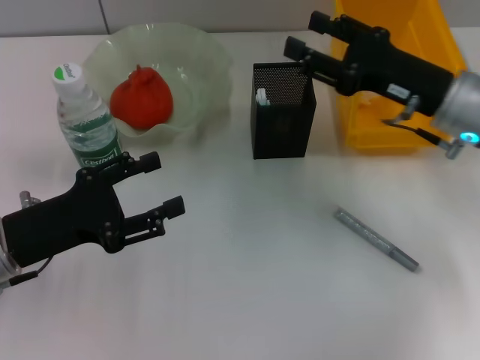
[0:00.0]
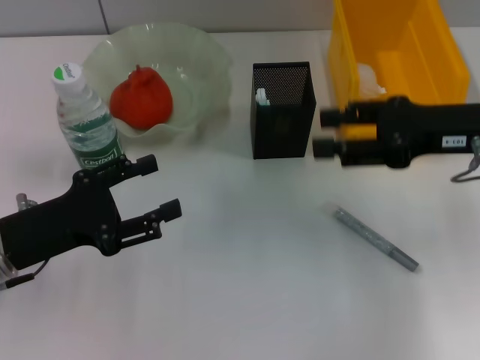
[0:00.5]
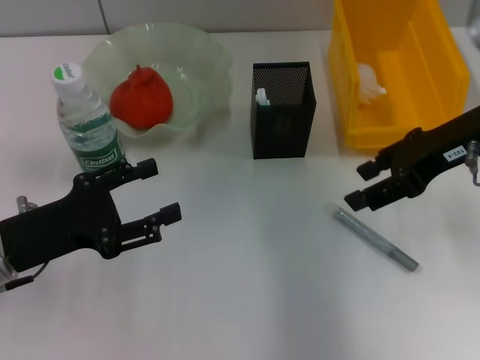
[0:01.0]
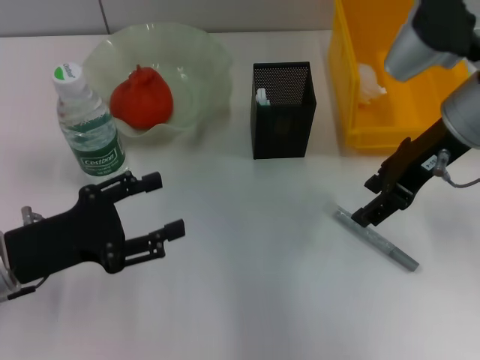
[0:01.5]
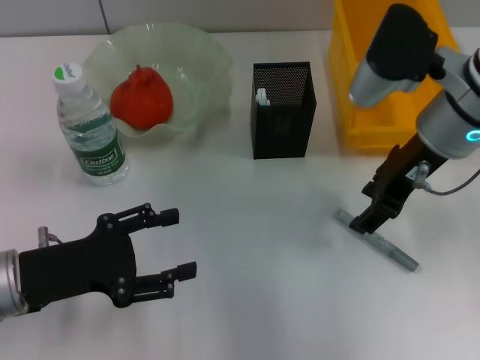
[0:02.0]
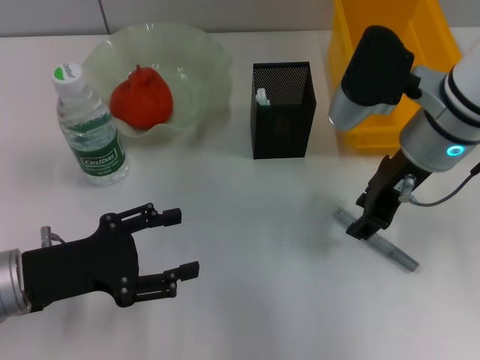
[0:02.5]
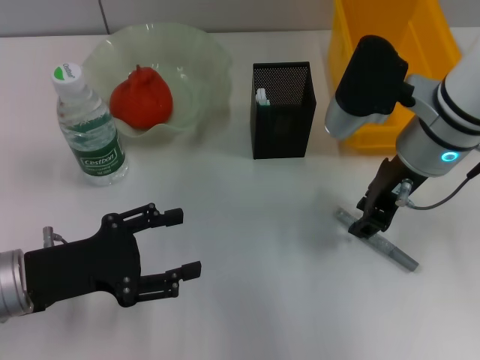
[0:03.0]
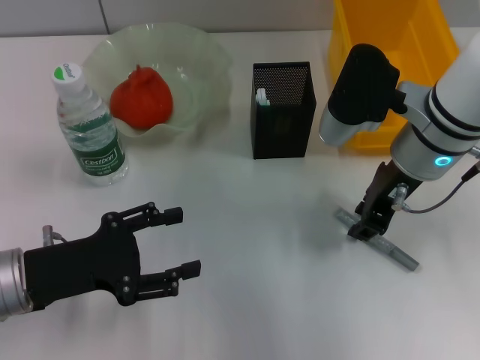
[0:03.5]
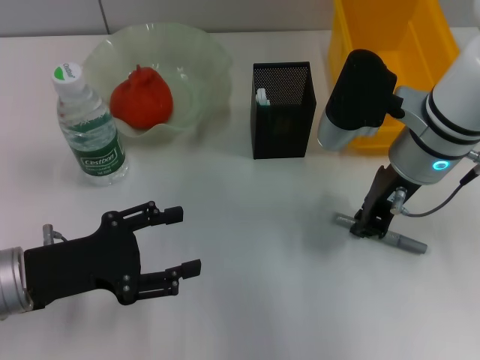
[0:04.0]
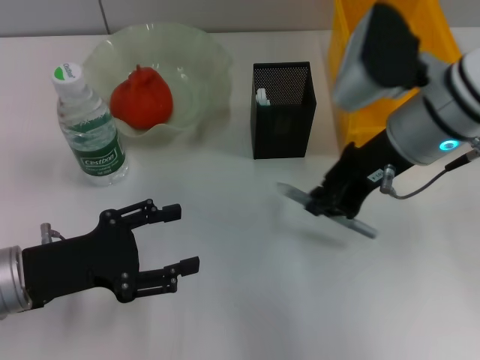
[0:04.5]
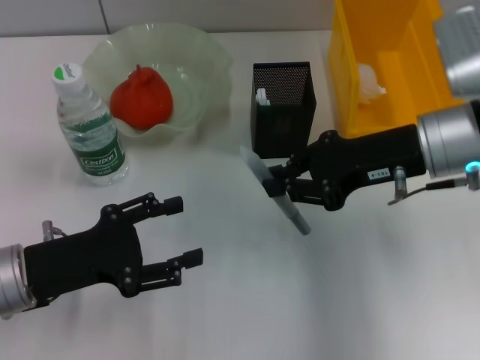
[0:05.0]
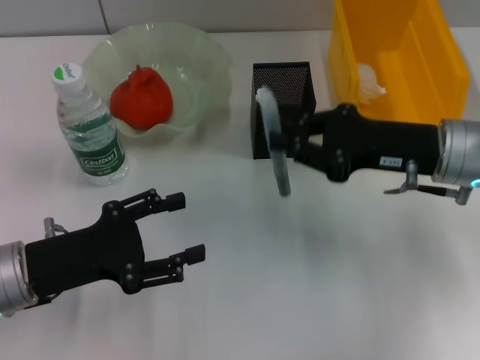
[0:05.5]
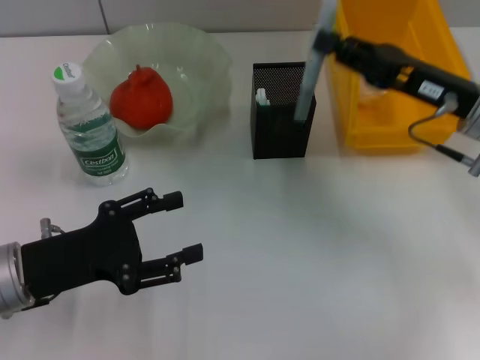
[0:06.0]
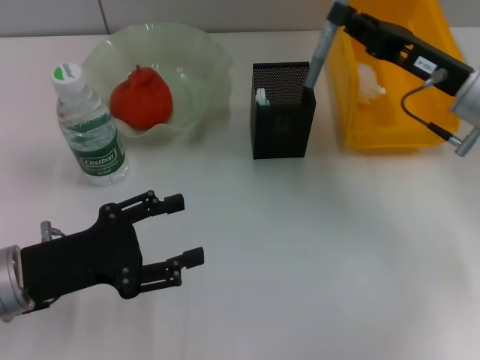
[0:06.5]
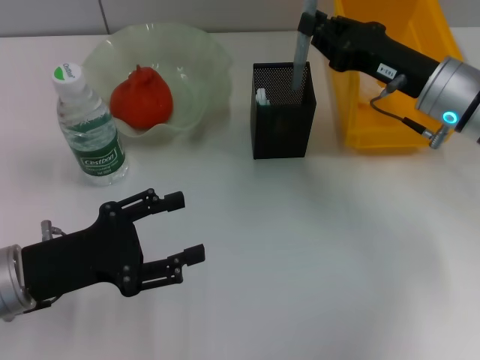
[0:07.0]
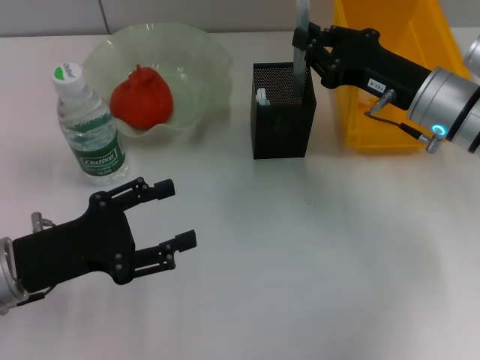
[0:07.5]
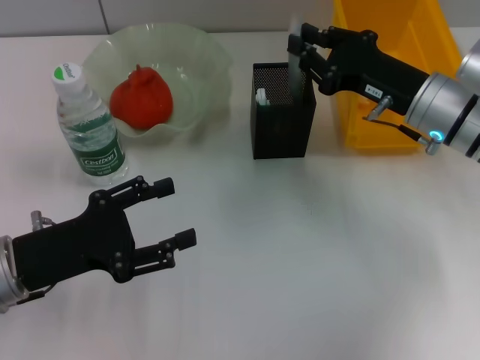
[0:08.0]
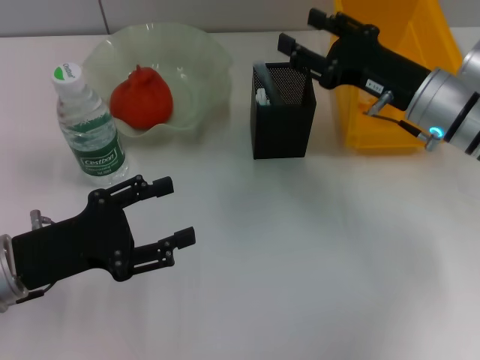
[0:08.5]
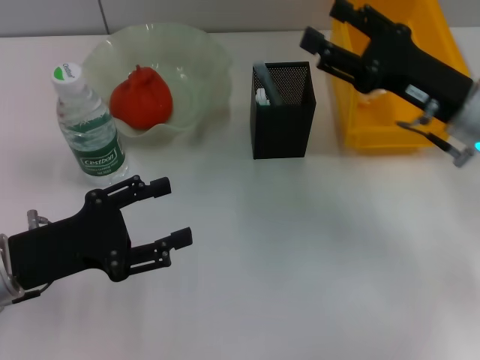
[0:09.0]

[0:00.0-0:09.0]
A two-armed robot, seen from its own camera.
Step, 0.0 to 3.0 s: Grab the gray glue with the right hand.
Step, 4.0 to 8.0 s: Place the gray glue into the pen holder with the right hand.
0.0 to 2.0 s: The right gripper goes roughly 5 cm upward and to the left.
2.0 to 4.5 s: The right gripper closes.
4.5 to 7.0 s: The right gripper moves downward and to the right, roughly 10 cm.
7.0 to 9.0 s: The right gripper opens its fingers.

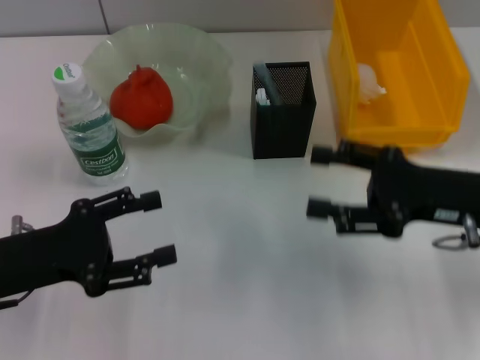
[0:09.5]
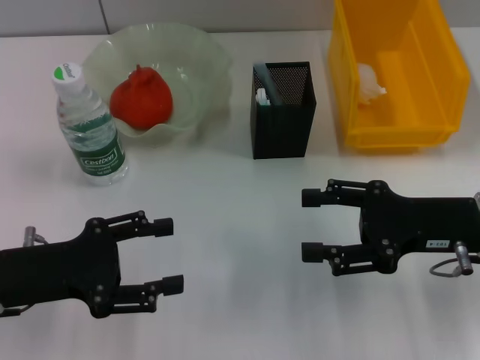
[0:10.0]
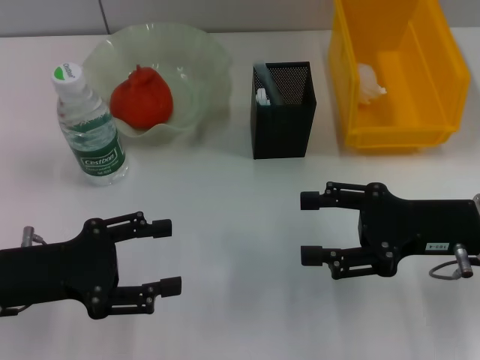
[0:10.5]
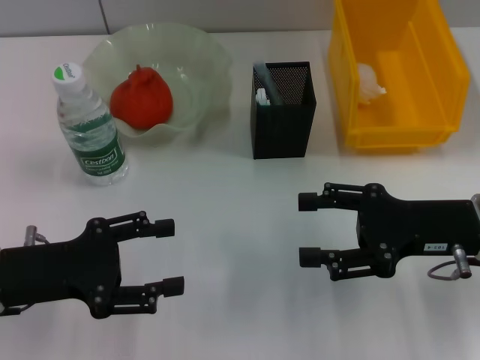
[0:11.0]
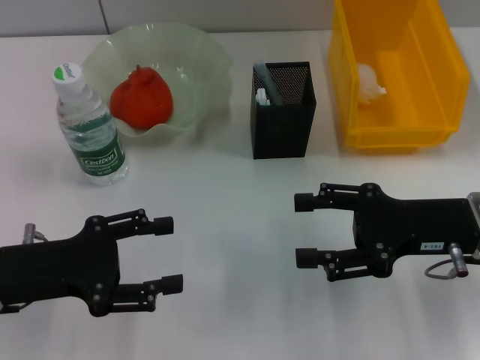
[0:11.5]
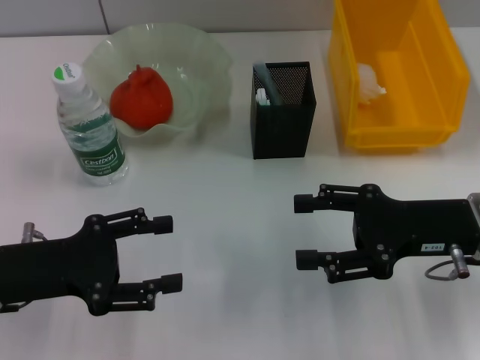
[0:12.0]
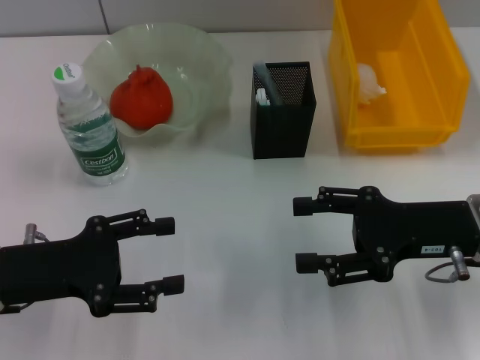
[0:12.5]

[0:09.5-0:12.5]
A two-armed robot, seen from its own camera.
9.5 to 11.0 s: The grippers move only a little.
11.0 to 12.5 s: Both grippers stay about where they are.

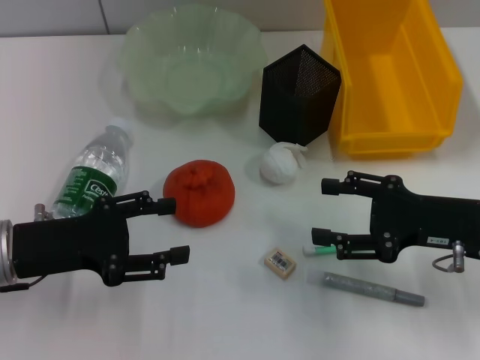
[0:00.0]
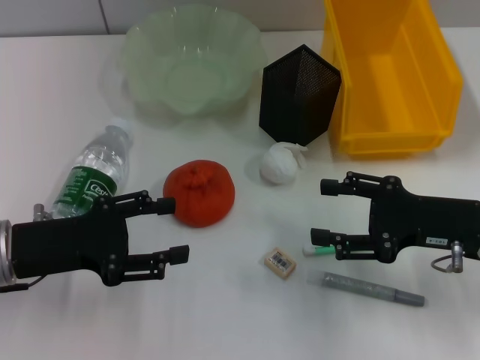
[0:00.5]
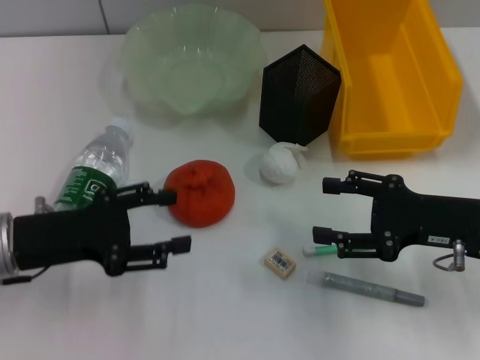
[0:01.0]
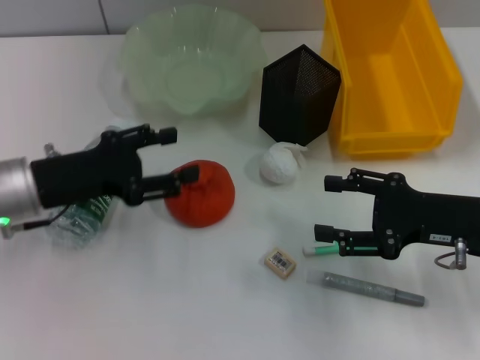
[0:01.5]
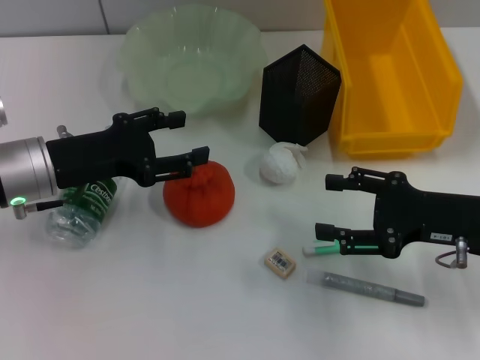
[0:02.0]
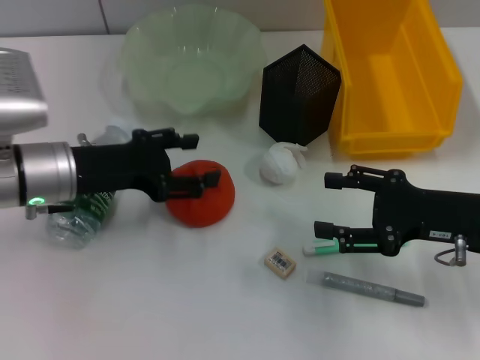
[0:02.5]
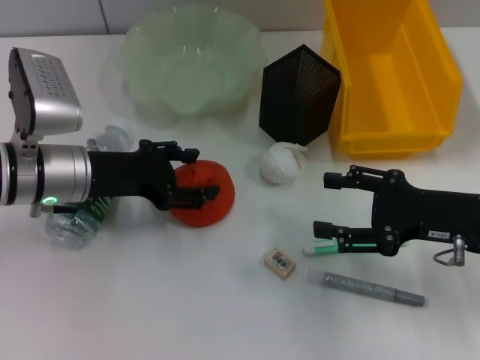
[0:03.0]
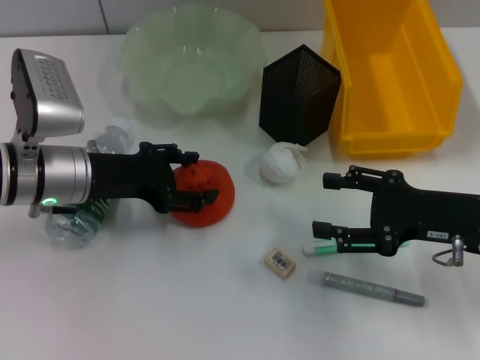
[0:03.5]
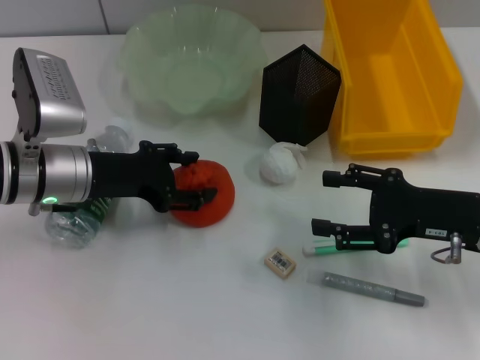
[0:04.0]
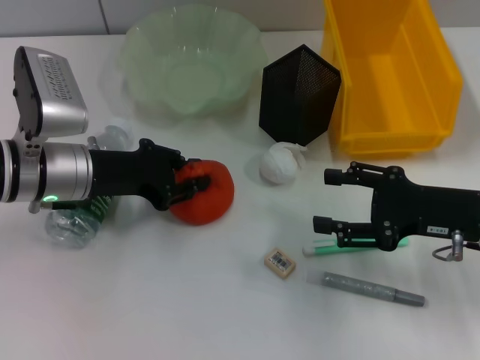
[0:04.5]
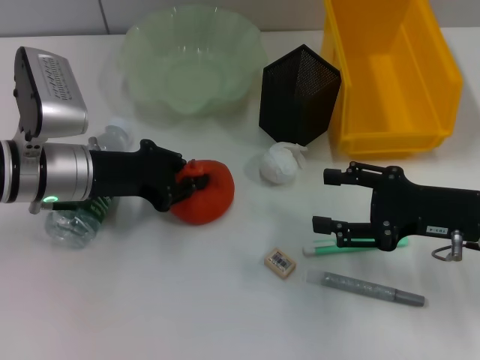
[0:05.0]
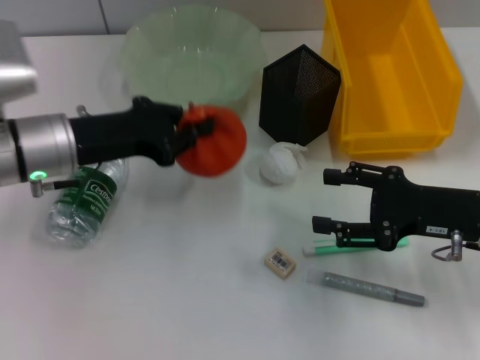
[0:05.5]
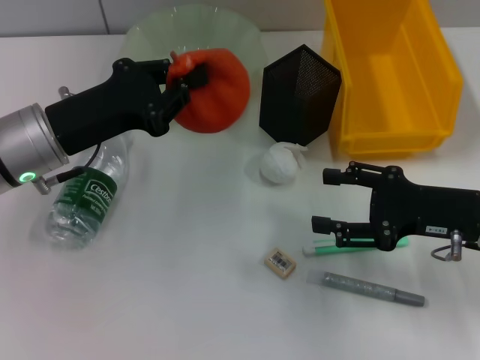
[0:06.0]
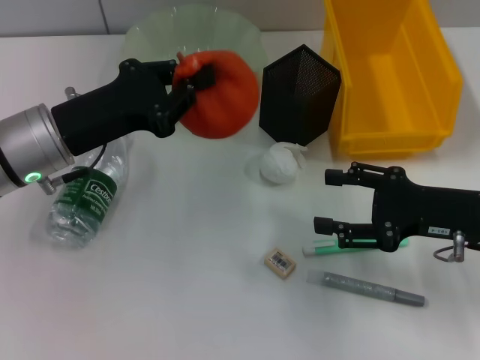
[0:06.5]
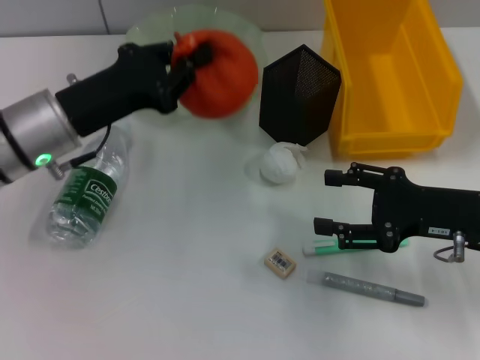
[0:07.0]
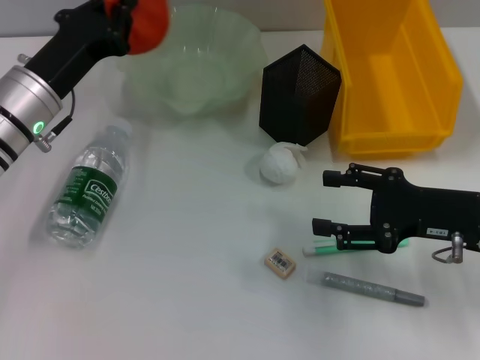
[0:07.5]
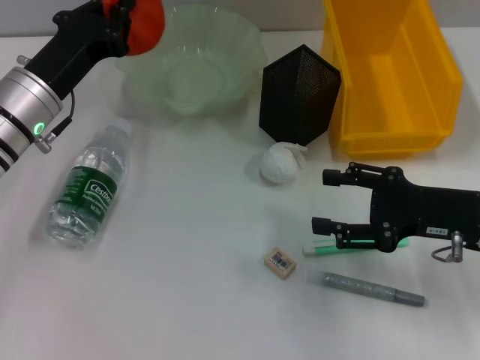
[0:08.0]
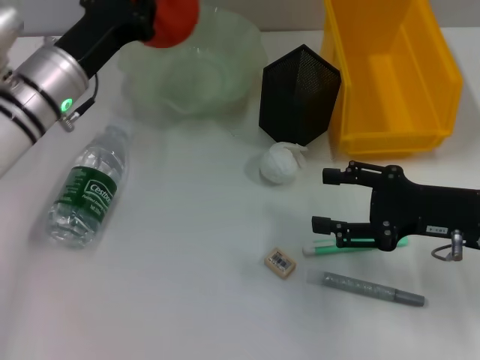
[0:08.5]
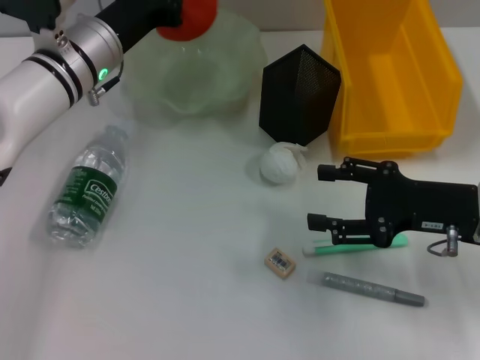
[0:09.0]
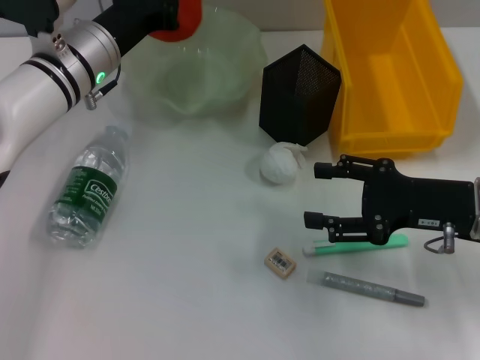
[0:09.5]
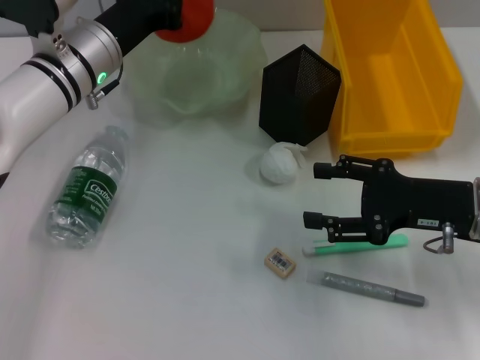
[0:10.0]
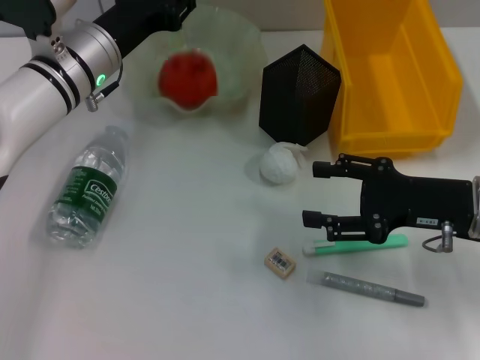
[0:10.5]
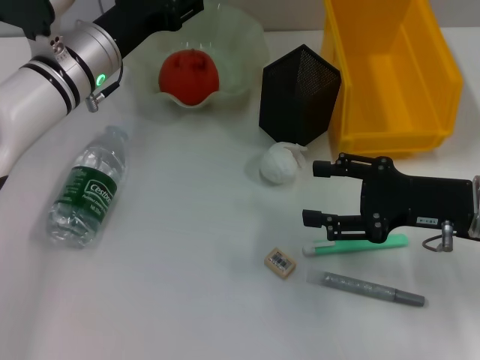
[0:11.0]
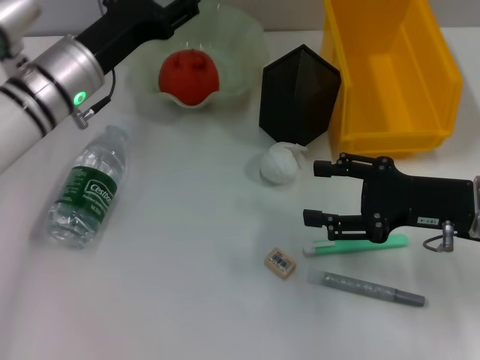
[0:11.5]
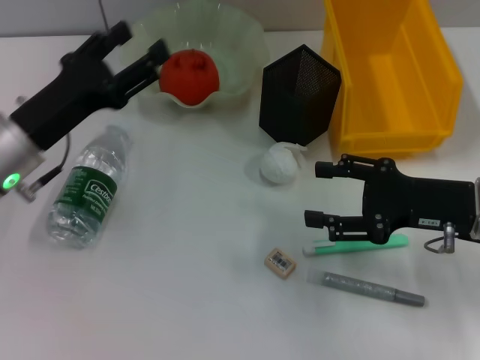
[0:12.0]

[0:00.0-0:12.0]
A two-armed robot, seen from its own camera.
Step, 0.0 to 4.5 s: Grab the orange with the left hand.
Step, 5.0 to 10.5 s: Place the orange into the fruit bowl with the left hand.
0.0 to 2.0 s: The left gripper heads forward, covering about 5 cm.
2.0 to 4.0 s: The grippers stay close to where they were, moving slightly.
4.0 to 6.0 s: The left gripper closes up.
8.0 to 10.0 s: The left gripper moves forward and to the right, about 10 cm.
10.0 to 12.0 s: The left gripper heads backward and to the left, covering some 15 cm, and opens up.

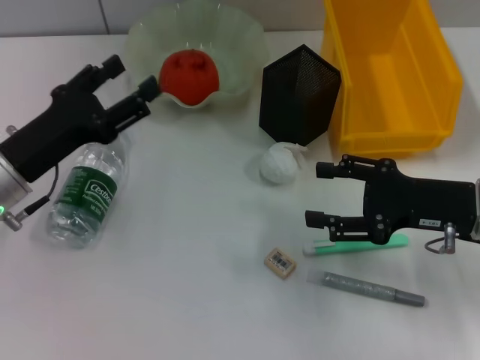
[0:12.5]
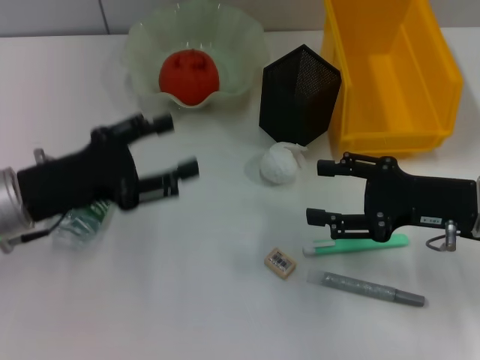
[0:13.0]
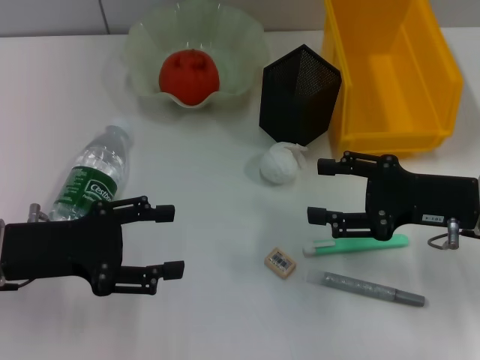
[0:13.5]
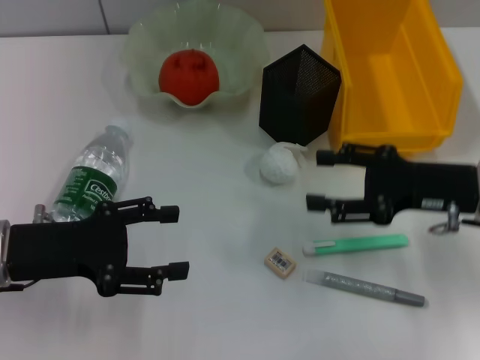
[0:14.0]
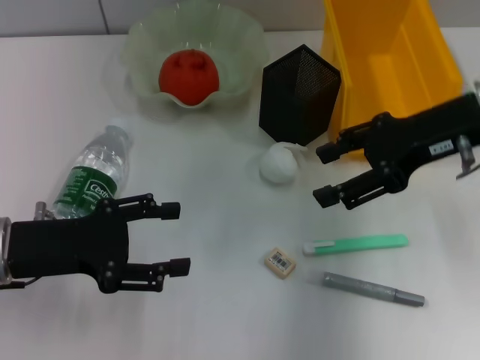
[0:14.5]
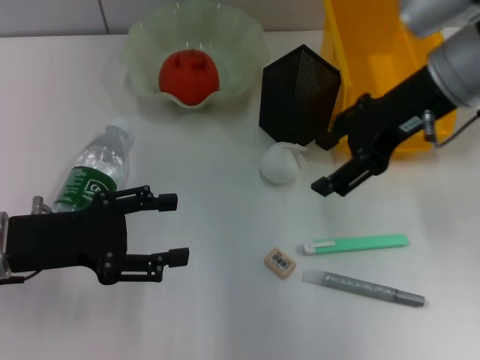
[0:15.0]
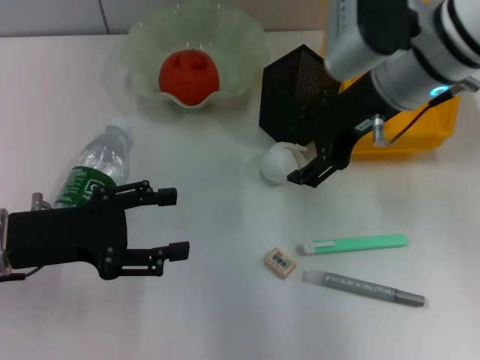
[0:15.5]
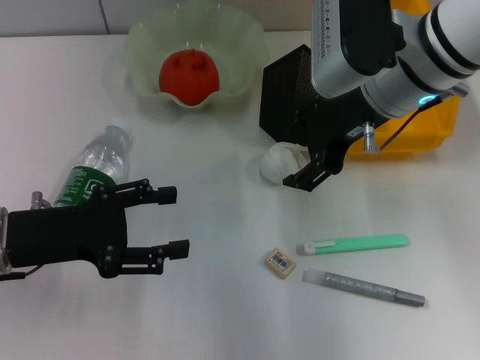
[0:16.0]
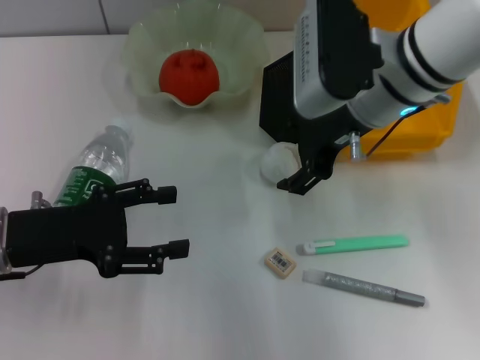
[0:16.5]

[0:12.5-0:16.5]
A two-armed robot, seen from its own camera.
12.5 to 14.5 s: The right gripper is displaced upward and forward by roughly 10 cm.
14.5 to 16.5 s: The right gripper travels to the left by roughly 10 cm.
